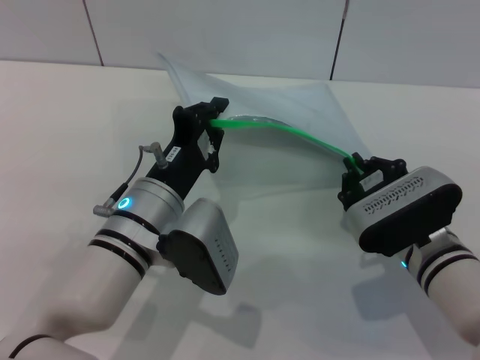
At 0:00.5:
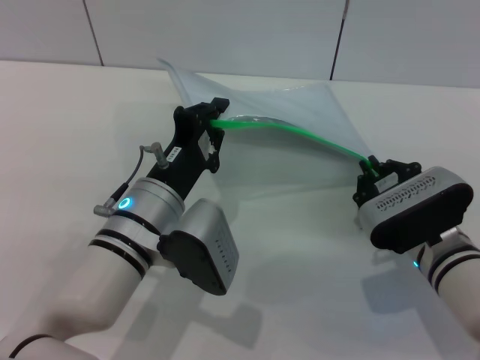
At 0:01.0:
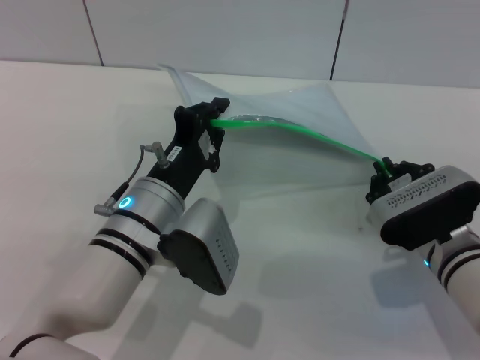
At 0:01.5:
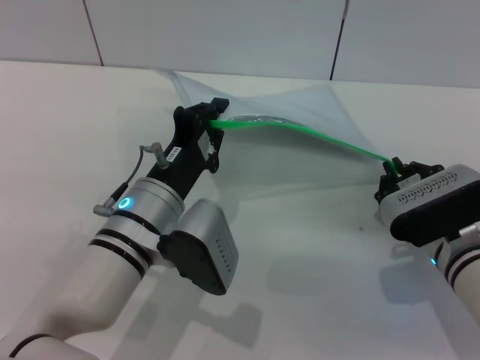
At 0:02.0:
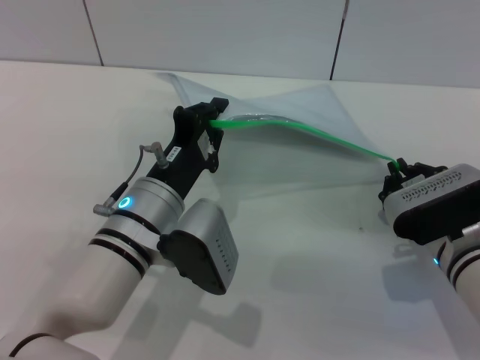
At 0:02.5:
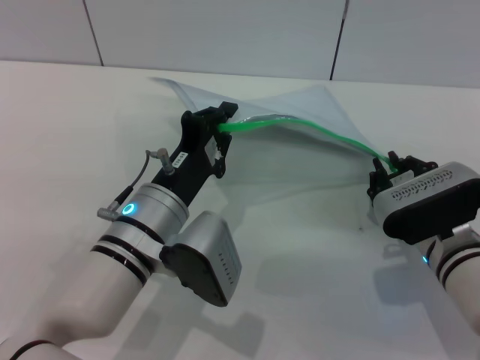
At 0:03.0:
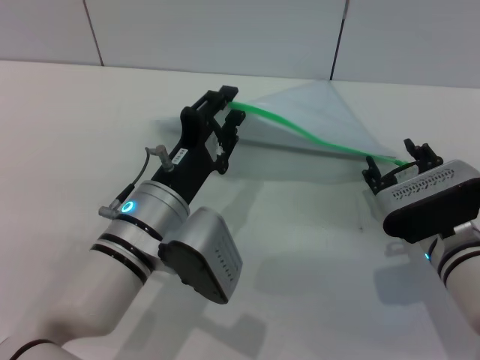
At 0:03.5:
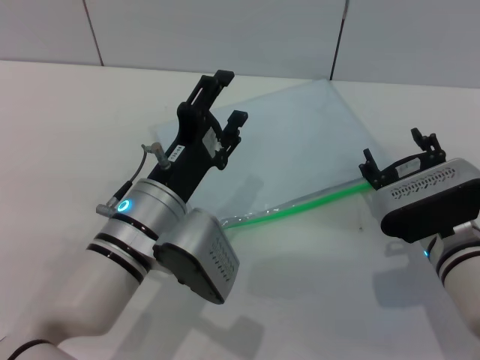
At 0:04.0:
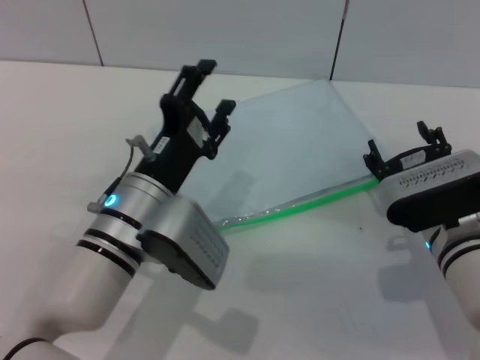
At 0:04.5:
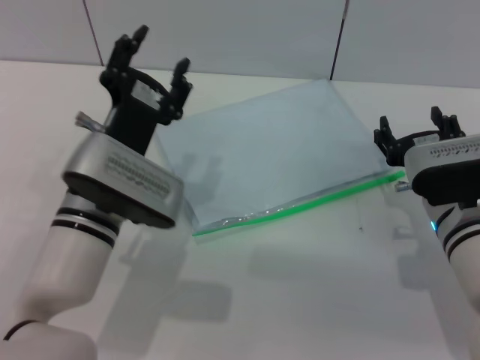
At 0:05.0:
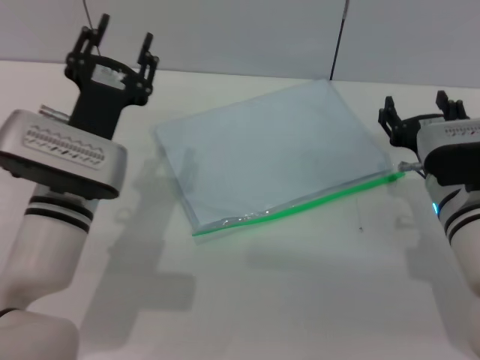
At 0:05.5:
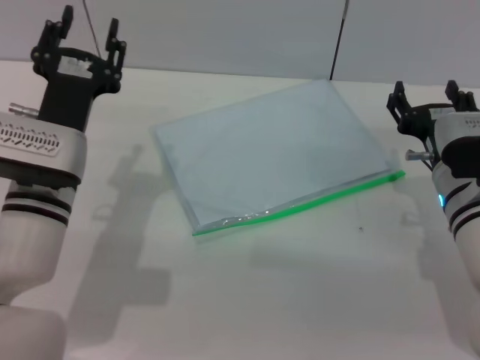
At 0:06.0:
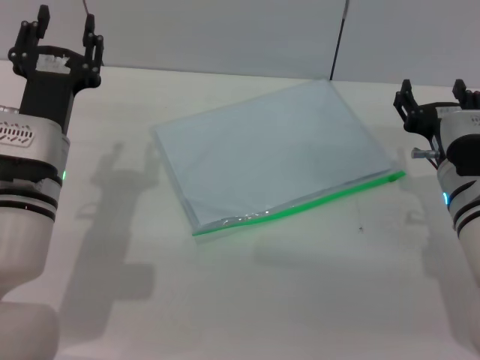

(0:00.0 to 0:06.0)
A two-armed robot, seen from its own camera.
Step, 0:00.0 - 0:02.5: Pulling up the zipper on the transparent plastic bag with the right gripper to close it.
Step, 0:03.0 - 0:04.0: Place the transparent plastic bag.
0:00.0 - 0:02.0: The grippers make only small movements.
0:02.0 - 0:04.0: The left gripper opens up. Meanwhile the right gripper opens its fingers.
0:04.0 - 0:06.0: The left gripper goes roughly 10 cm to the left.
